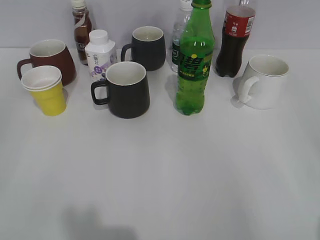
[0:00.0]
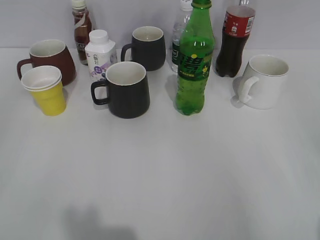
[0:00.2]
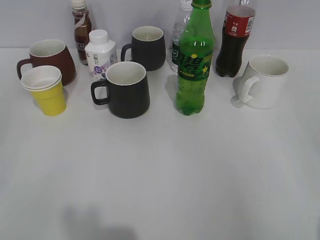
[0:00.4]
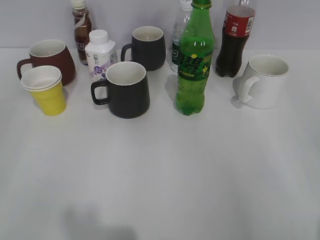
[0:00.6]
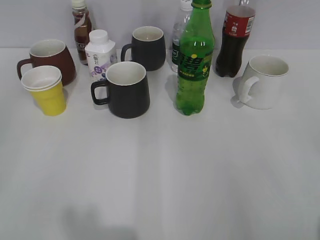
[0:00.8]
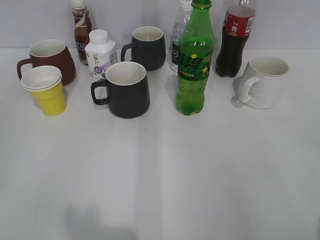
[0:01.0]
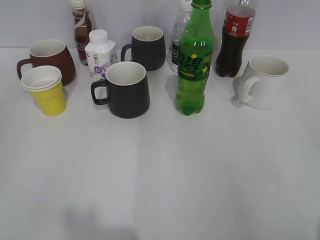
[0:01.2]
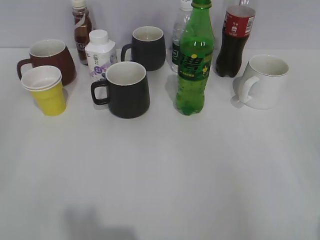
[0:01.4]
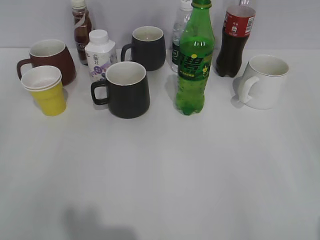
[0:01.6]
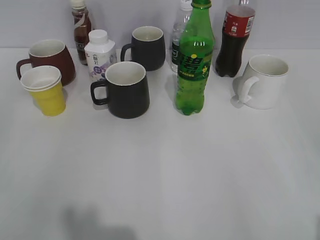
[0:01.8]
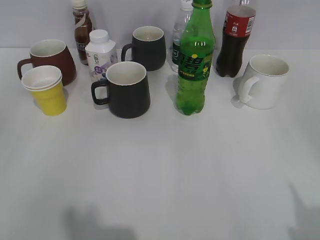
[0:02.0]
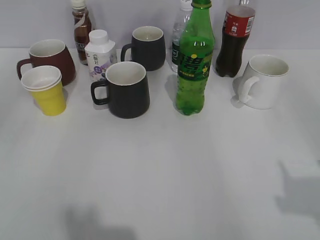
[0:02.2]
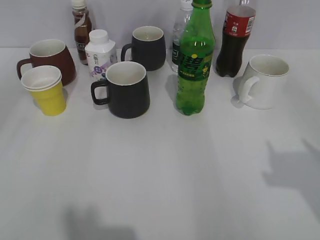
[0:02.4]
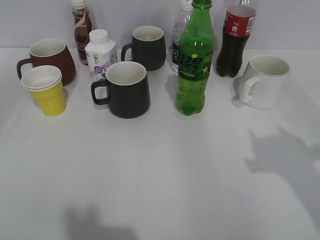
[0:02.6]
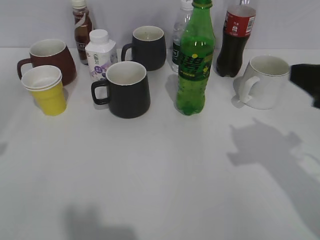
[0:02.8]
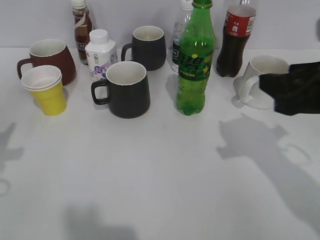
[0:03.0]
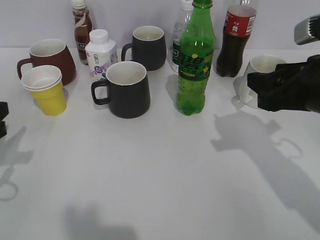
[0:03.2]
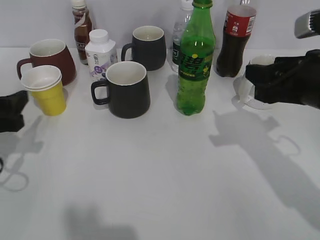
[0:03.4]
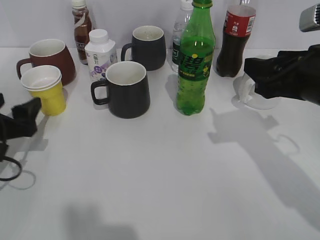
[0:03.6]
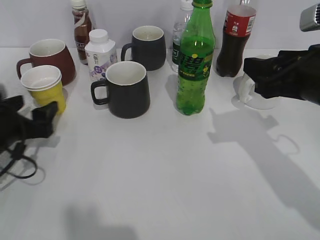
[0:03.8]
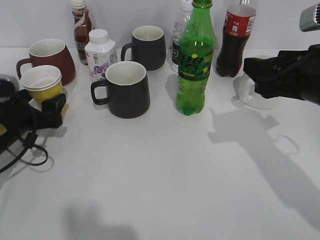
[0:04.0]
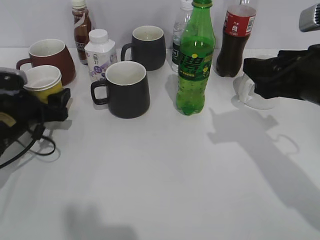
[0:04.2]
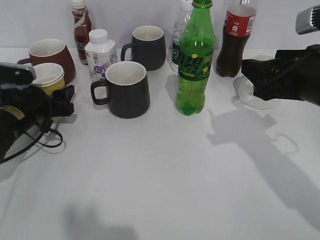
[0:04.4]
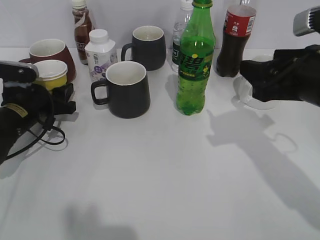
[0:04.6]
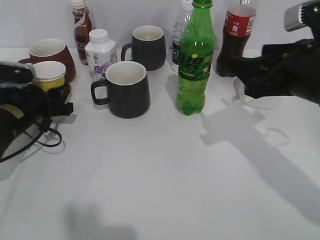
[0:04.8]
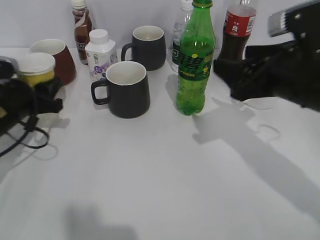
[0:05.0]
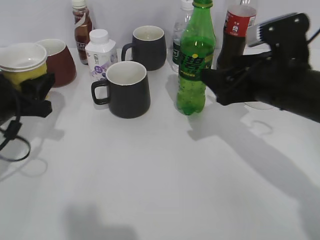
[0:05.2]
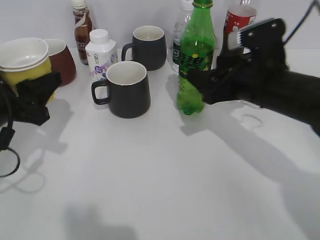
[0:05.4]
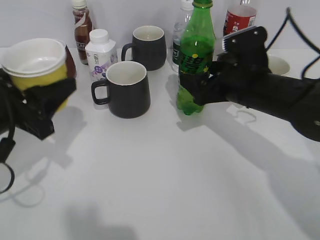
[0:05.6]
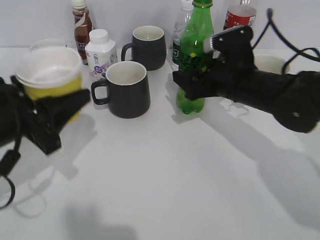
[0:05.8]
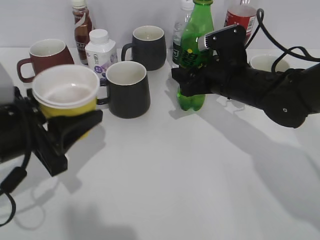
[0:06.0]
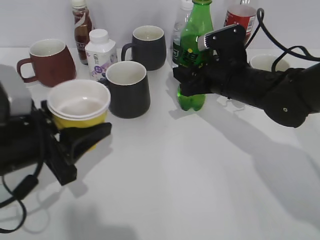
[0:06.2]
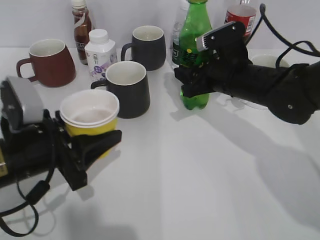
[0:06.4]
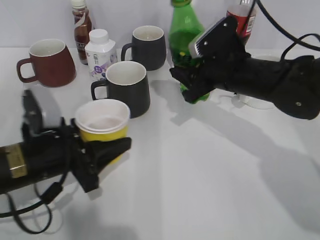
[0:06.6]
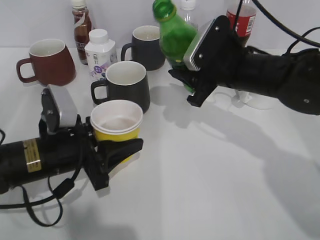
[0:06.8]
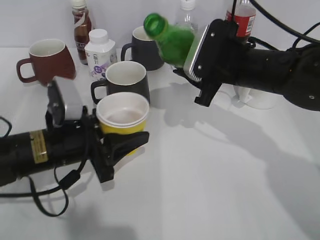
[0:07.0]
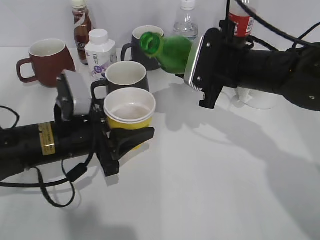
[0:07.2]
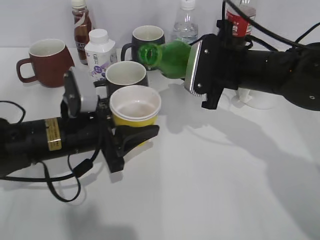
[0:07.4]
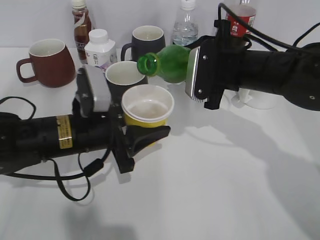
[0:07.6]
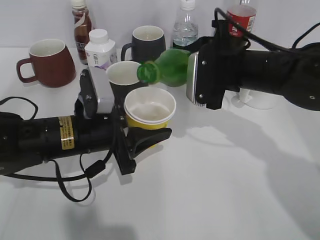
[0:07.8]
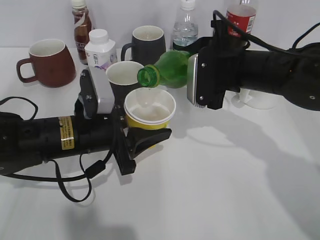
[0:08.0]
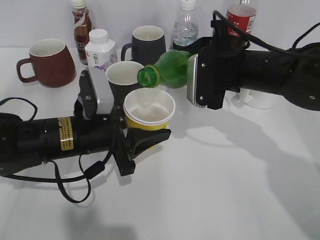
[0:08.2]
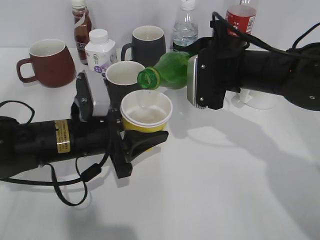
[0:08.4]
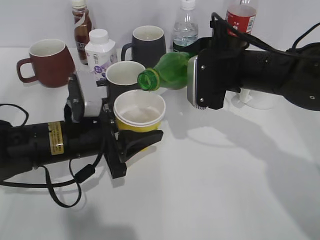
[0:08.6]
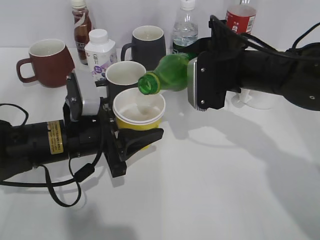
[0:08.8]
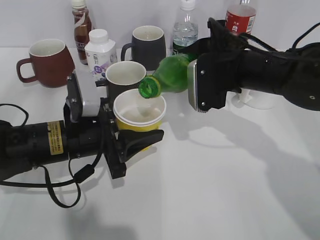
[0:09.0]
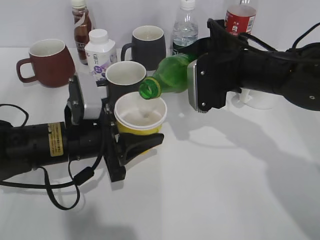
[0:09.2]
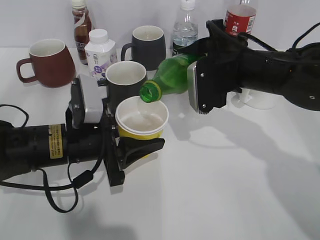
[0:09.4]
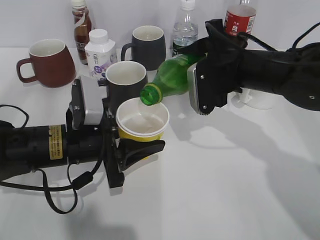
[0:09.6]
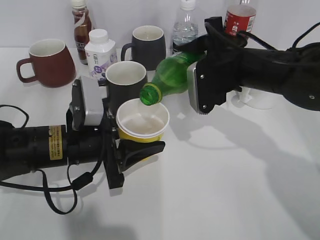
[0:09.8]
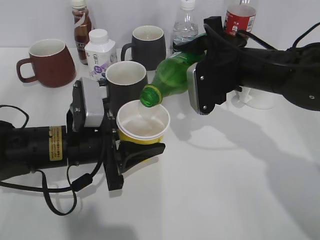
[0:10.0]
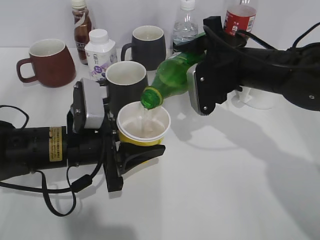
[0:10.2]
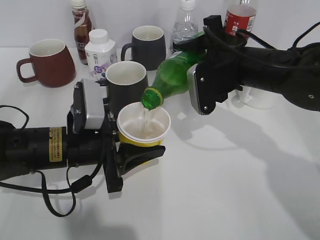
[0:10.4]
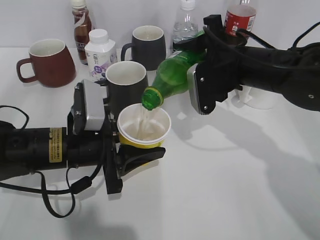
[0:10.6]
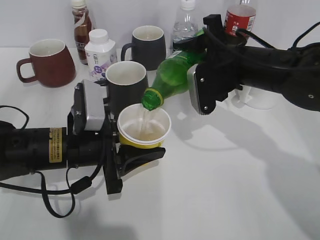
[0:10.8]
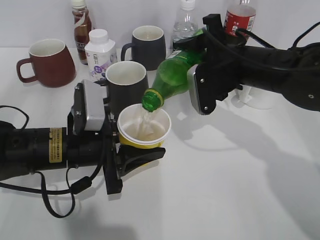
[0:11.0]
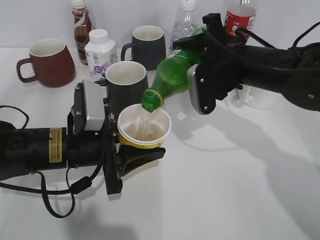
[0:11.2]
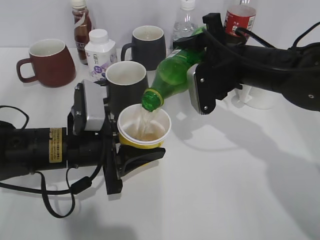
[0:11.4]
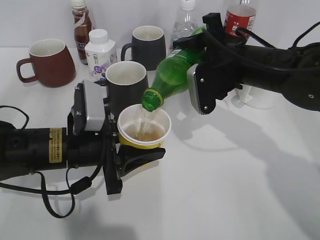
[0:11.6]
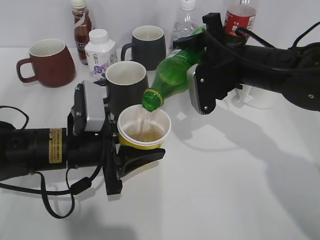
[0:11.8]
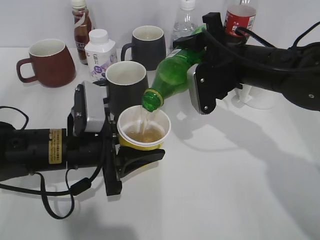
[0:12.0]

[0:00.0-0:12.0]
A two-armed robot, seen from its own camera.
Step, 0:01.8 to 0:04.4: Grasp the yellow paper cup with left gripper.
Step, 0:04.6 to 0:06.0: Grasp the bottle with sprite with right gripper.
0:01.6 to 0:03.0: The left gripper travels forward by some 20 cm. The right gripper travels forward and to the left by some 20 cm, and closes.
0:03.0 to 0:04.4: The left gripper heads forward and downward, covering roughly 20 cm, and opens, while the right gripper opens.
0:04.4 to 0:06.0: The right gripper shifts approximately 15 cm forward, downward and to the left, and opens, then closes once more. The left gripper goes about 15 cm backward and upward, and closes.
0:06.0 to 0:07.6: The right gripper closes its fingers. The left gripper goes some 10 cm to the right, forward and downward.
0:07.6 to 0:09.0: There are only small adjustments of the grippers.
0:09.0 to 0:10.4: The grippers move only a little.
0:10.4 to 0:12.0: Neither gripper changes place.

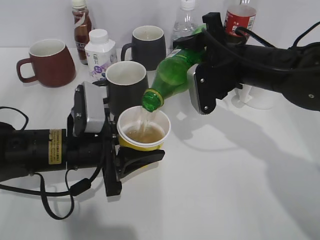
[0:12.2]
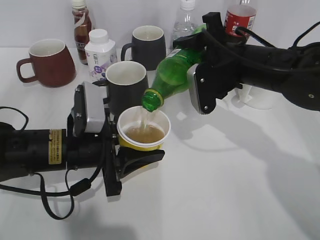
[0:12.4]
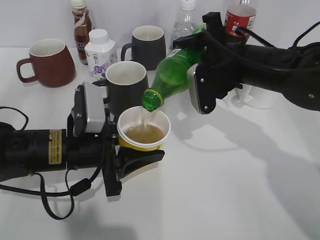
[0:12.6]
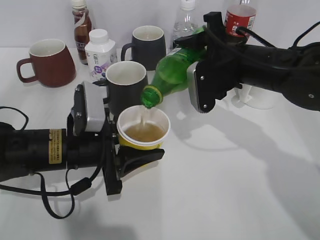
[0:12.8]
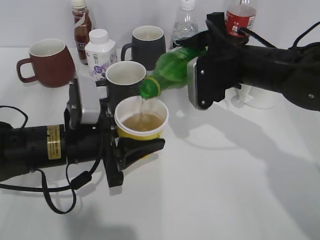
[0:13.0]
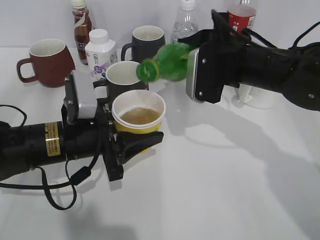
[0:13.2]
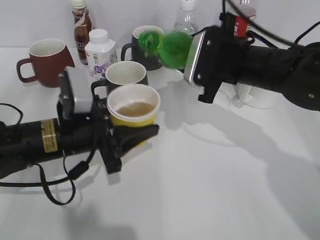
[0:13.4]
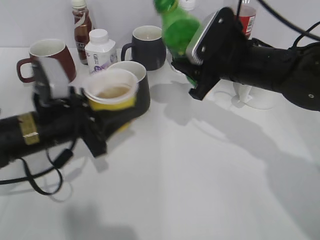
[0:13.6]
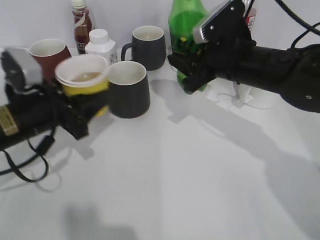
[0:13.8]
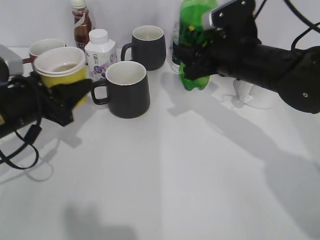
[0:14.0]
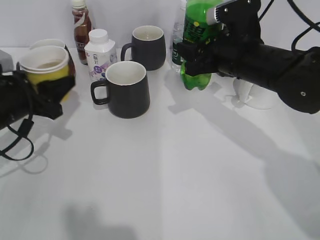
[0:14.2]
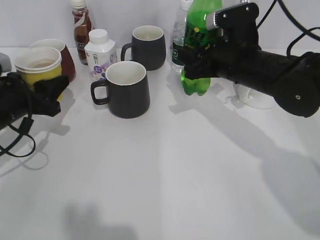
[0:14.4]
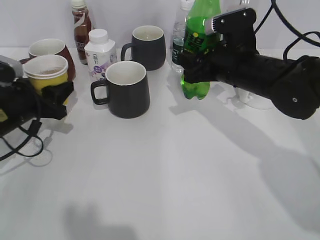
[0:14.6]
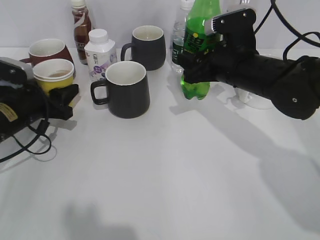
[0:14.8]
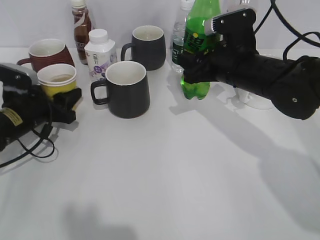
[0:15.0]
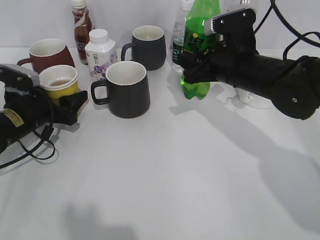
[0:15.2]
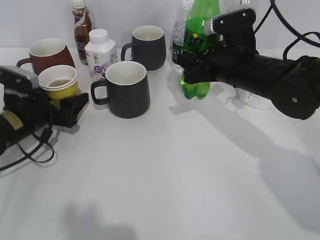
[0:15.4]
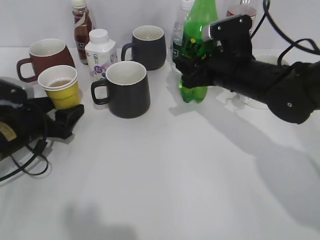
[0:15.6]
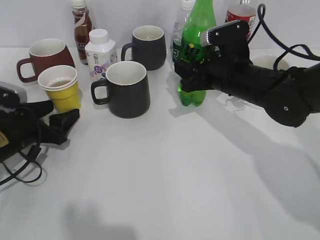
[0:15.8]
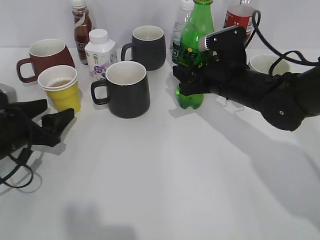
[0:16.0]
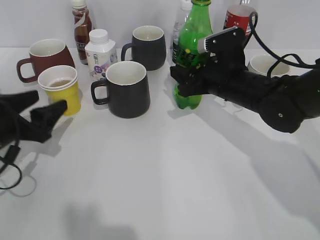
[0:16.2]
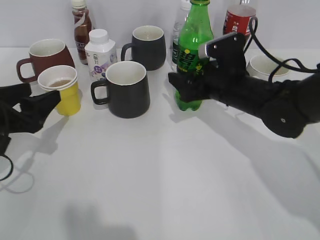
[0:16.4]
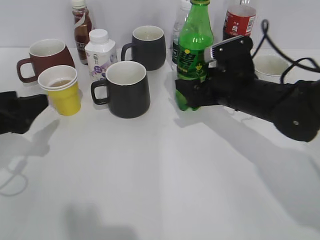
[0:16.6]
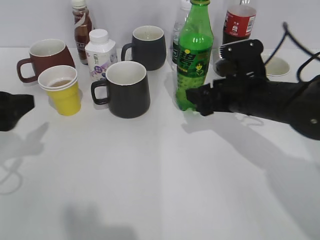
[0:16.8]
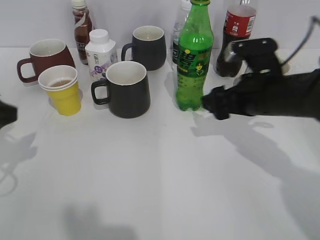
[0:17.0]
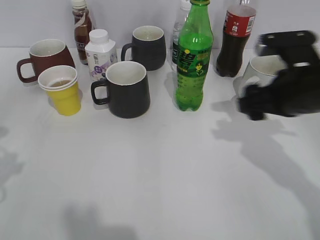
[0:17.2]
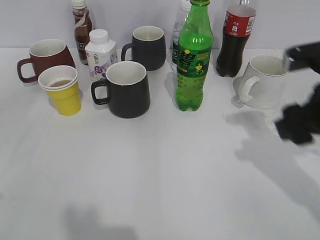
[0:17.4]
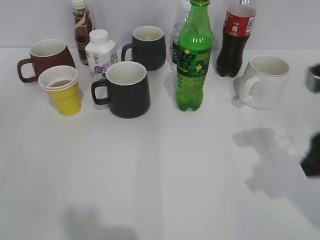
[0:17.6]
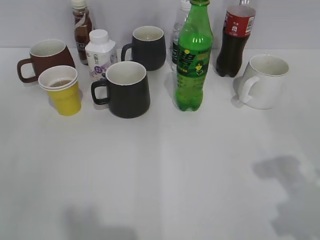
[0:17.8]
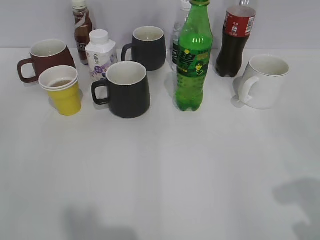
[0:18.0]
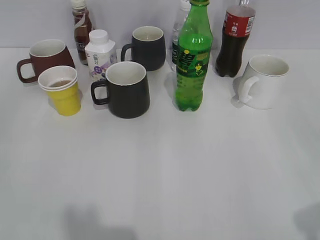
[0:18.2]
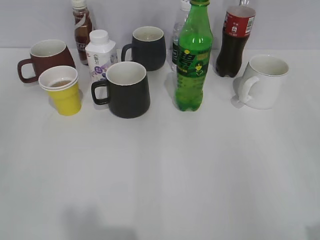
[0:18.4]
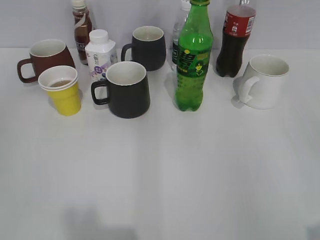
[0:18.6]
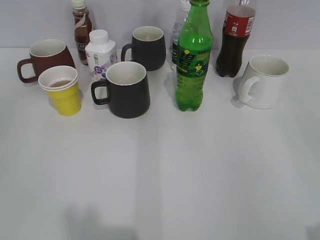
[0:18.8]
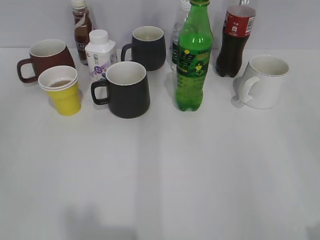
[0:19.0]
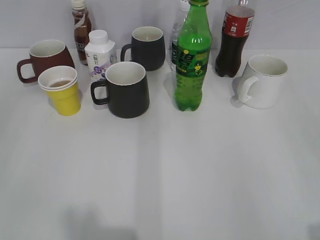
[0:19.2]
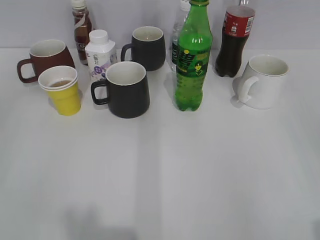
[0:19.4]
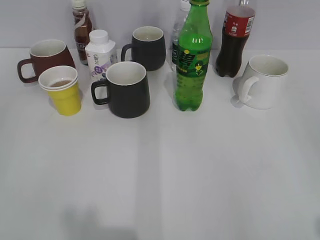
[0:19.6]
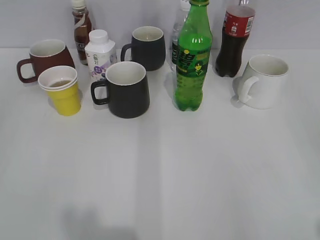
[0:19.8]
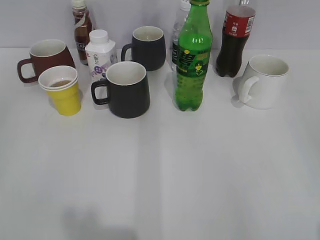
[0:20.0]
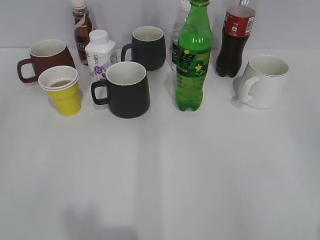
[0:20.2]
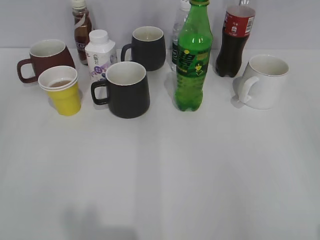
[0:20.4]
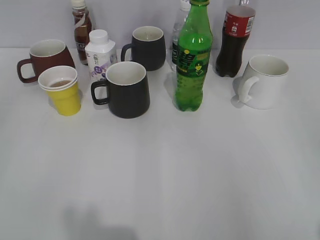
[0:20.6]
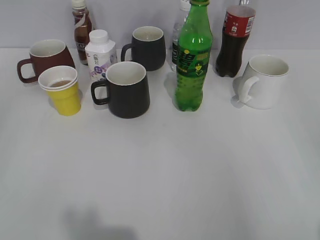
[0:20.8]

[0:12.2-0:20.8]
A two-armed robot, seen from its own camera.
Step, 0:13.4 to 0:15.4: Place the yellow paper cup on the table with left gripper.
Step, 0:15.6 to 0:16.6: Place the sprite bottle on the table with right gripper.
0:13.6 to 0:15.0: The left gripper travels to the left, forward and downward by about 15 cm.
0:15.0 to 0:16.6: The left gripper travels backward and upward by some 15 cm, and opens. Meanwhile the right gripper opens.
0:16.6 to 0:18.0: The right gripper shifts about 30 cm backward, to the right and upward, and closes up, while the left gripper goes some 20 cm backward and upward.
0:18.0 to 0:19.4: The right gripper travels backward by approximately 5 cm.

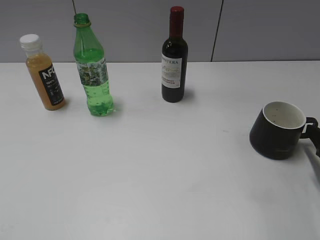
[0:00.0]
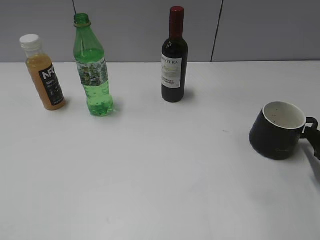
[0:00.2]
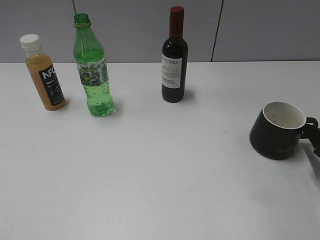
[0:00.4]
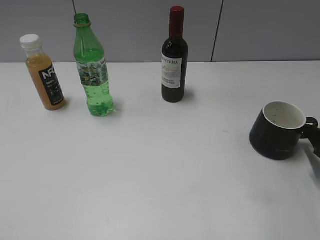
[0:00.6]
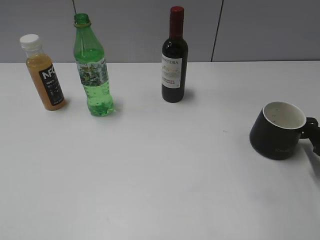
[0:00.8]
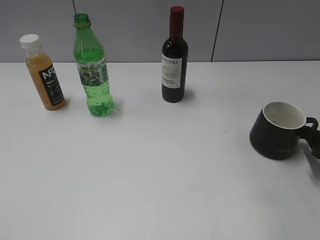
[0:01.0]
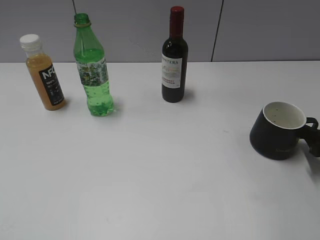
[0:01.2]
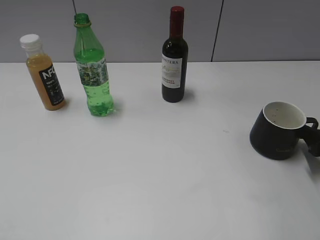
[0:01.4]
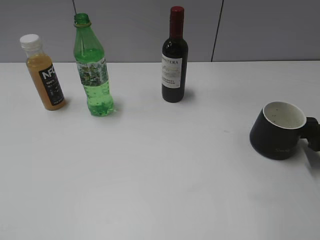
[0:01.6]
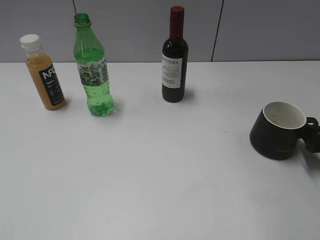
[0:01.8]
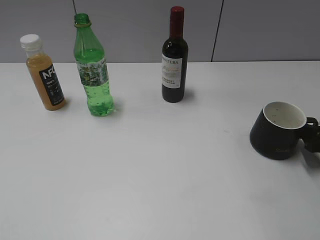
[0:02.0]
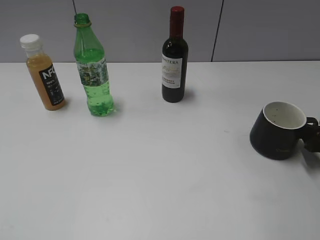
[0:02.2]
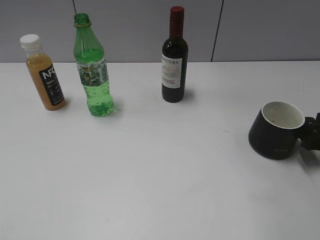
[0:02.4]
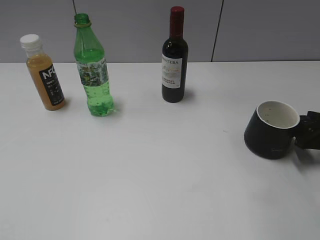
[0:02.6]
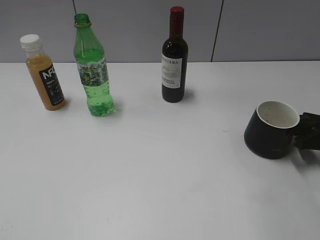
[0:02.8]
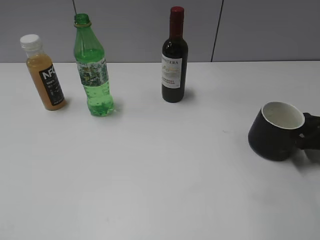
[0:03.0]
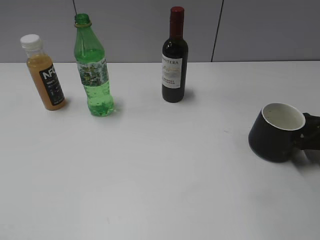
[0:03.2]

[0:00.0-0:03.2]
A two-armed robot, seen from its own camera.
0:01.6 to 0:03.2: The right gripper closes.
